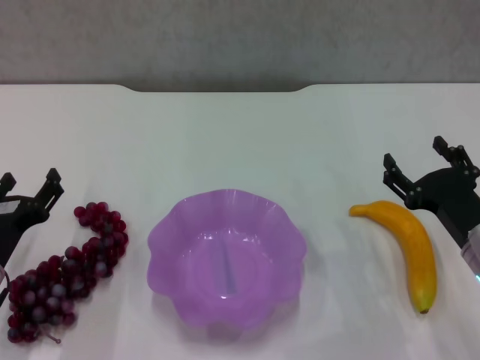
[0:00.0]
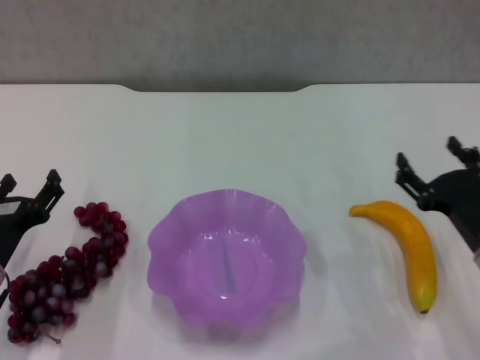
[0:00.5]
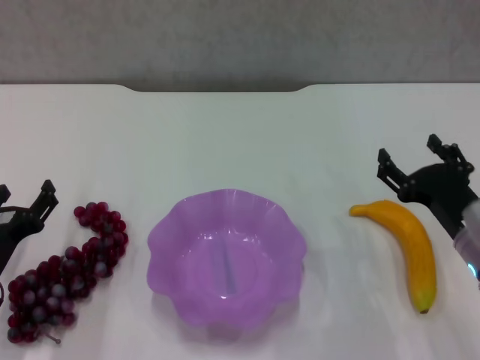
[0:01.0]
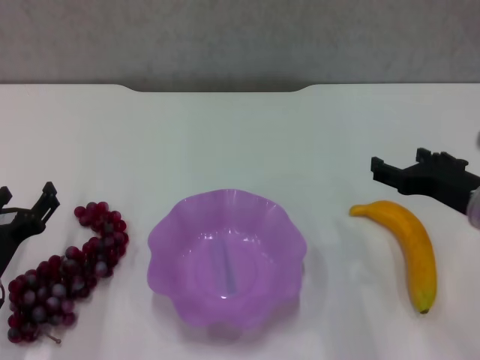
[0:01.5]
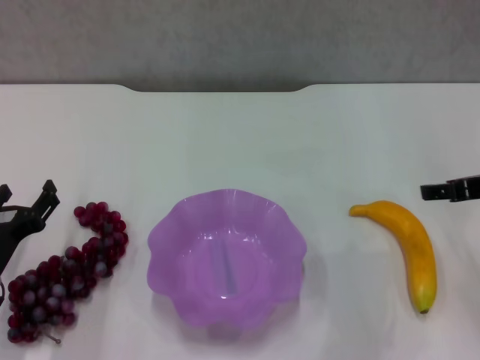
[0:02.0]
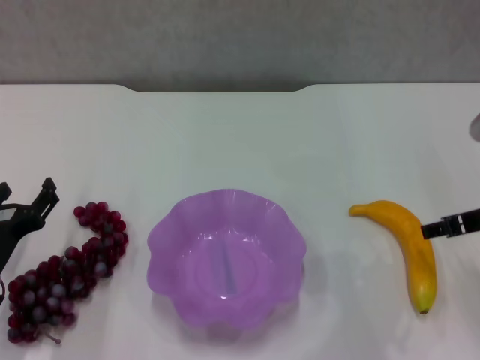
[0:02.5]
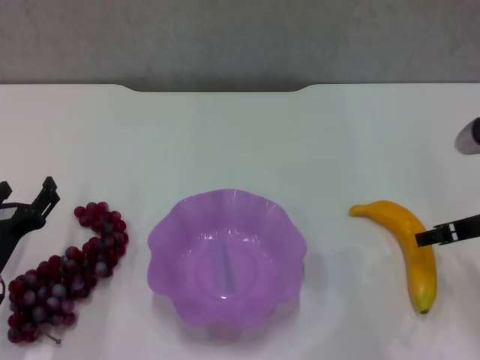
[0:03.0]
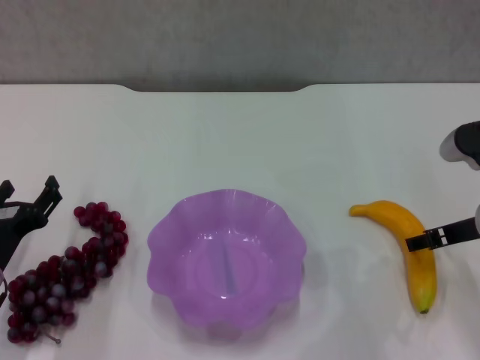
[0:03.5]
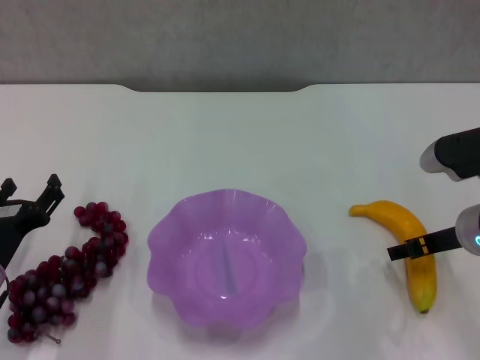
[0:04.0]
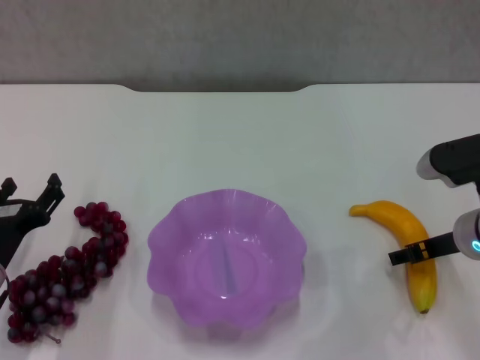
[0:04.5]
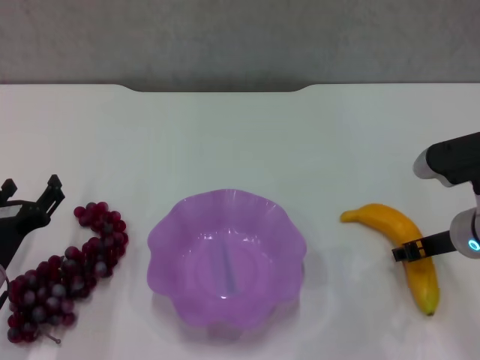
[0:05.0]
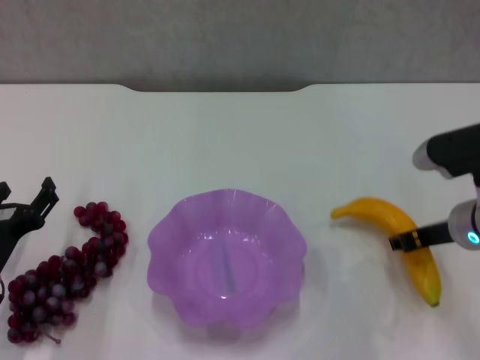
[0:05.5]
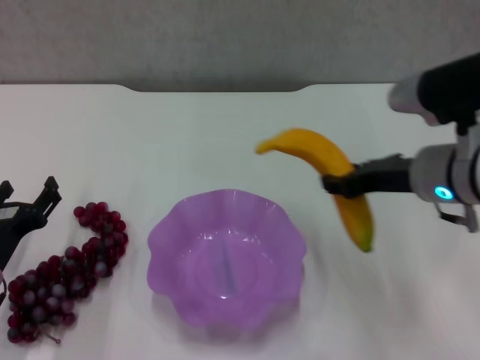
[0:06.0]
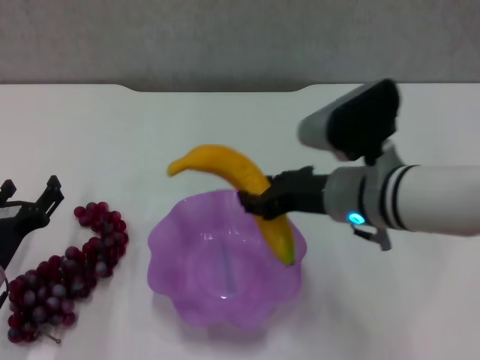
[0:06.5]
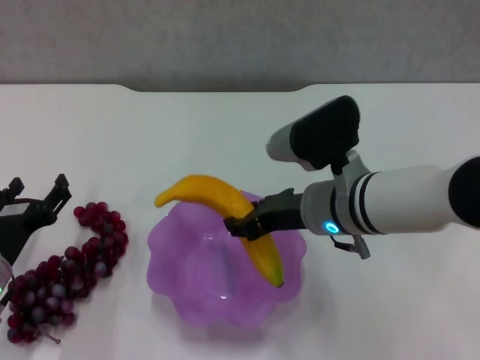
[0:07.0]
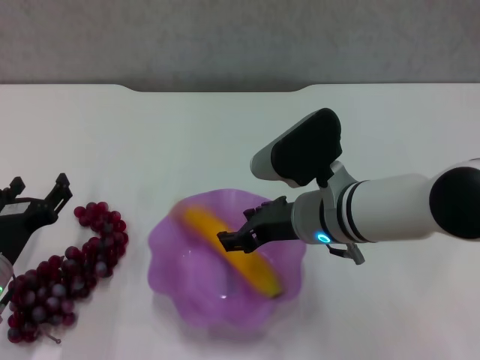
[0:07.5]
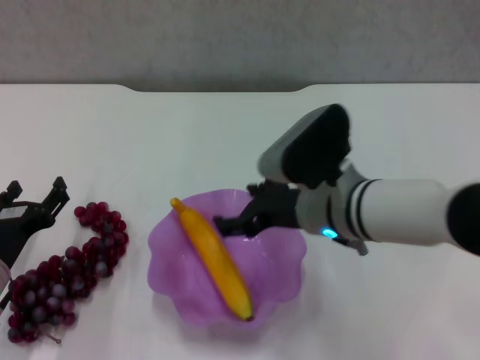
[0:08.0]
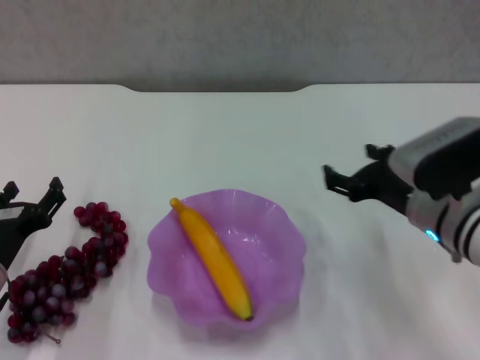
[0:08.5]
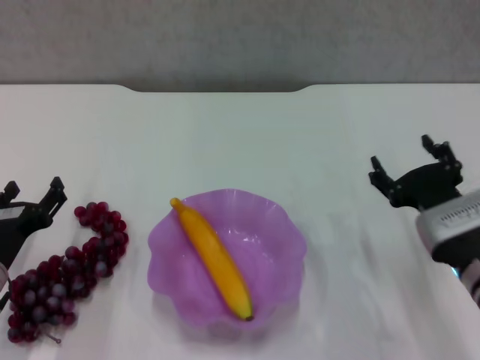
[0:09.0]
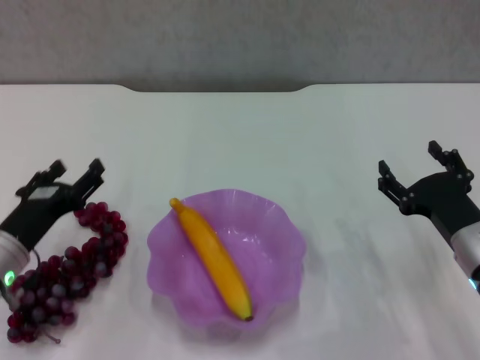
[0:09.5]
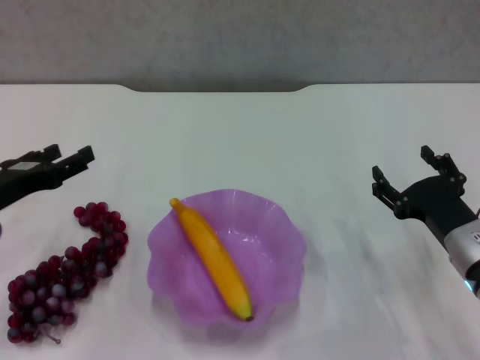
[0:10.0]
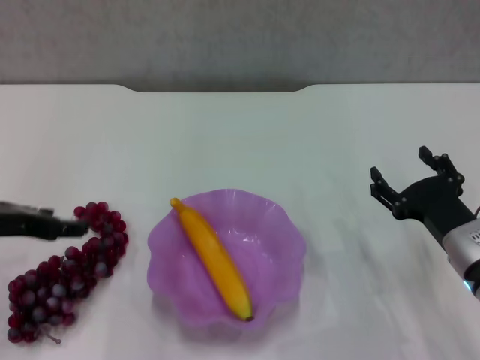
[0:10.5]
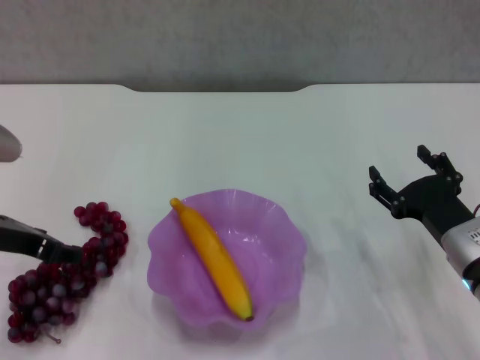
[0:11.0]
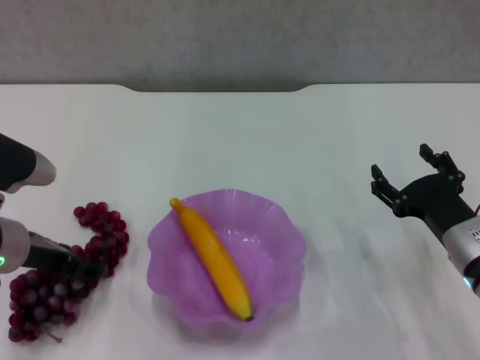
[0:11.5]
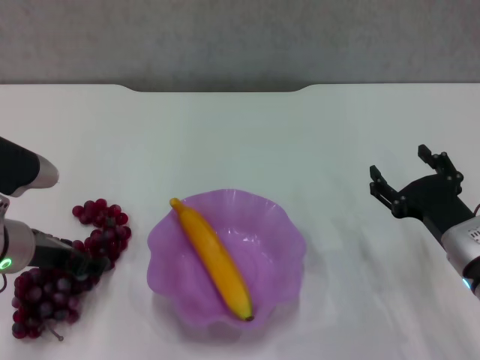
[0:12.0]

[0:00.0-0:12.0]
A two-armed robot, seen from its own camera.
Step, 0:00.0 to 0:05.0: Grasp the banana with right gripper.
Step, 0:05.5 to 0:07.5: Place the banana in the purple plate with right gripper.
0:00.0 to 0:02.0: The right gripper shifts about 15 cm upward and forward.
0:02.0 to 0:04.0: The right gripper travels downward by some 10 cm.
0:04.0 to 0:06.0: The right gripper travels upward and to the left by about 10 cm, and closes.
0:06.0 to 0:08.0: The right gripper moves to the left and downward, approximately 10 cm, and opens its fingers.
0:08.0 to 0:10.0: The right gripper is displaced to the right and downward by approximately 15 cm; the left gripper heads upward, covering approximately 10 cm.
0:10.0 to 0:12.0: The left gripper travels to the right by about 5 cm.

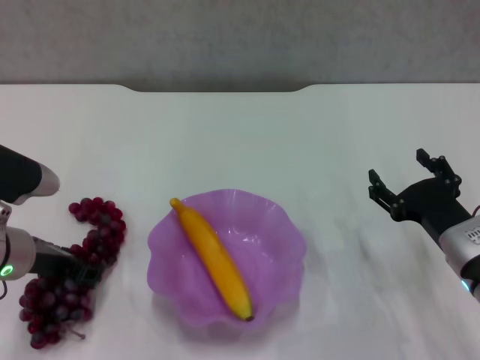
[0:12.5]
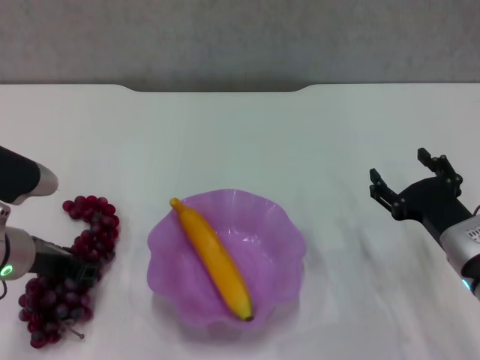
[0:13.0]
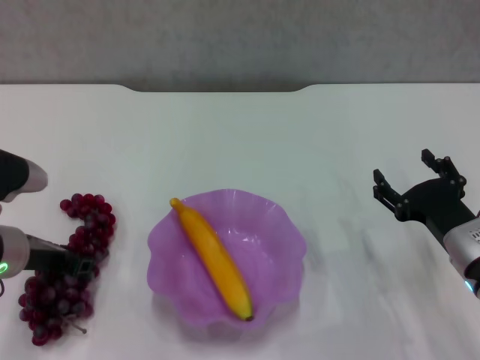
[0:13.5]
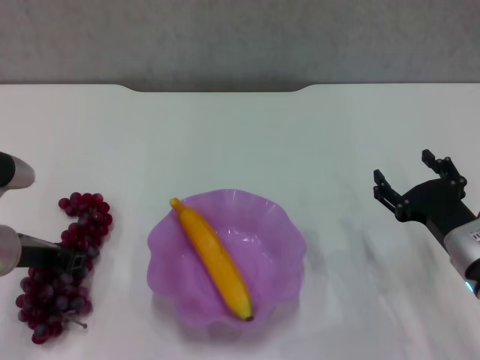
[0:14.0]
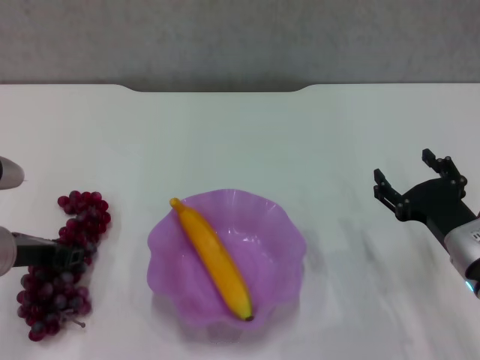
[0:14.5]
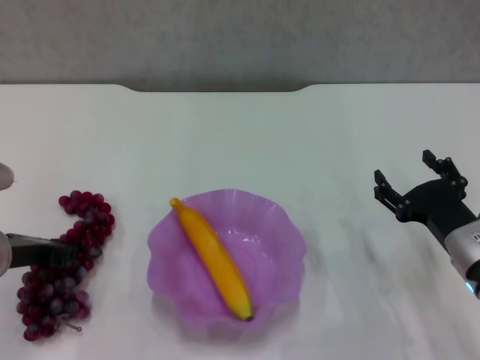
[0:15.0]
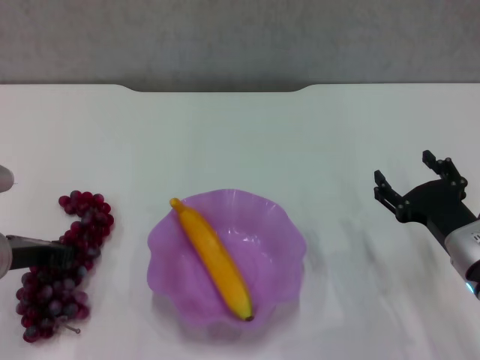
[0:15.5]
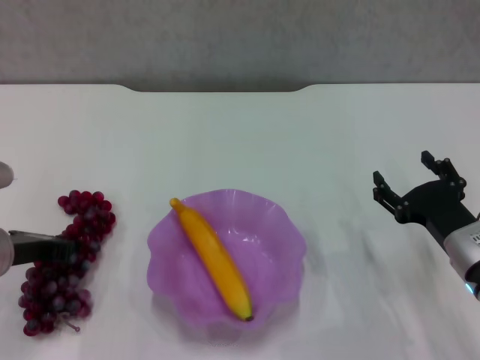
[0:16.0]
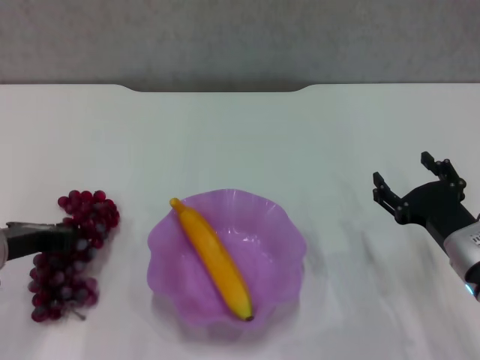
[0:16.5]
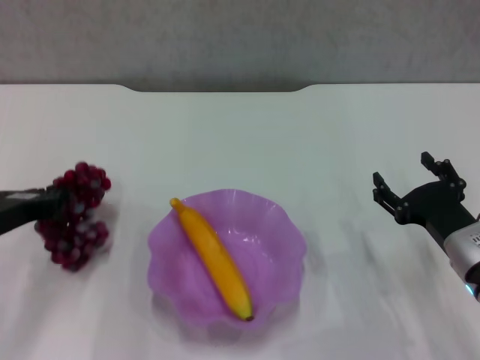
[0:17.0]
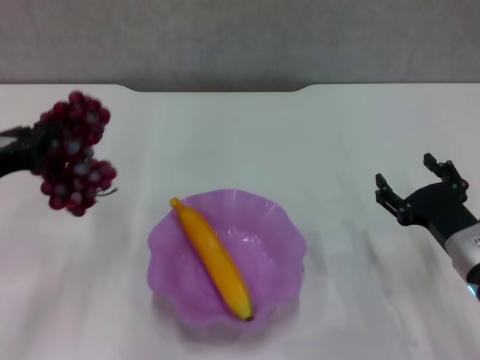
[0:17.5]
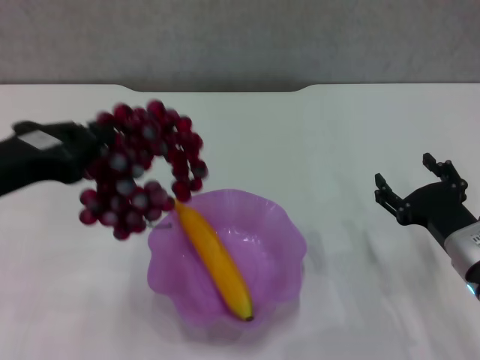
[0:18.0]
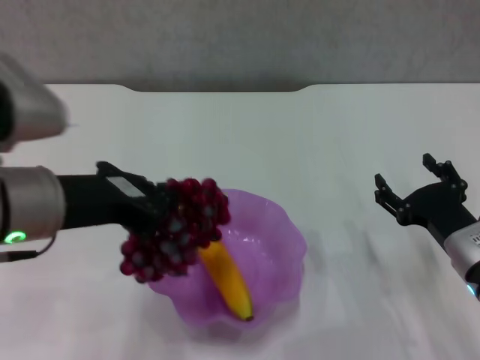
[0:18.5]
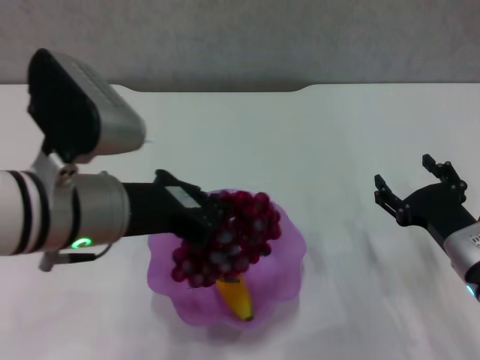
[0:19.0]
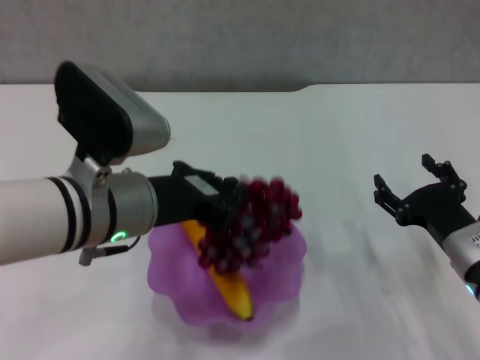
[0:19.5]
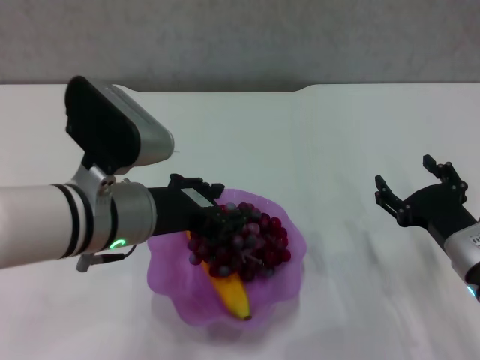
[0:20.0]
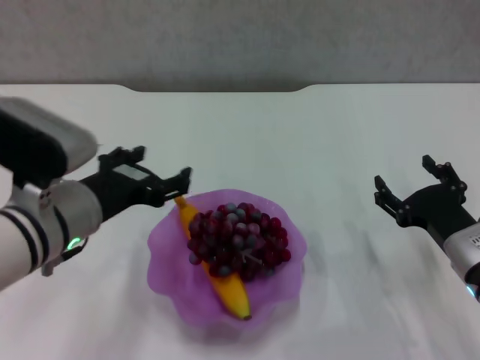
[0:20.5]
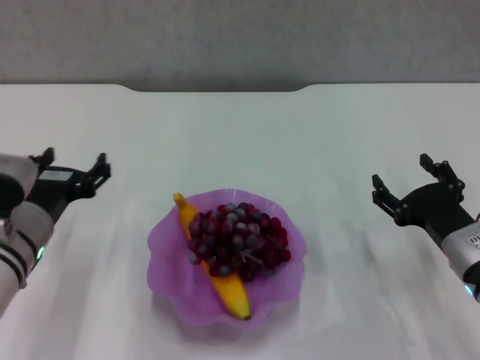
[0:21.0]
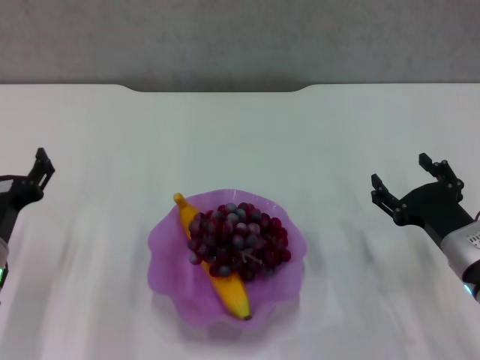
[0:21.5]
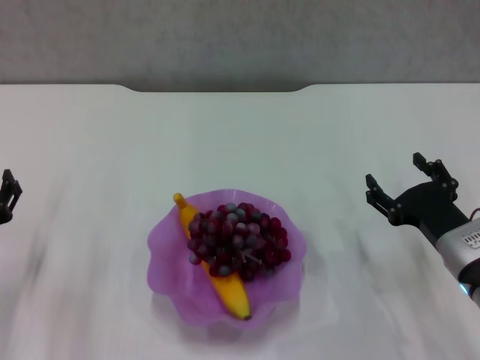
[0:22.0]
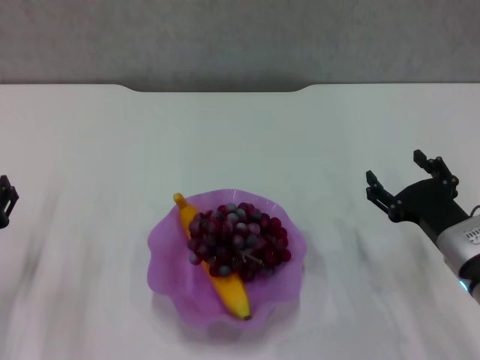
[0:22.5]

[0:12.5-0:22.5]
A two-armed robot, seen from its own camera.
Step, 0:12.5 to 0:16.0: Grasp the grape with left gripper.
Step, 0:16.5 to 0:20.0: Place the grape in the purple plate with left gripper.
0:12.5 to 0:14.5: The left gripper closes.
0:14.5 to 0:16.5: The grippers move only a little.
0:16.5 to 0:18.5: The left gripper moves upward and to the right, roughly 15 cm.
0:18.5 to 0:20.5: The left gripper is displaced downward by about 5 cm, and opens up.
0:20.5 to 0:22.5: The left gripper moves downward and to the left, about 15 cm.
